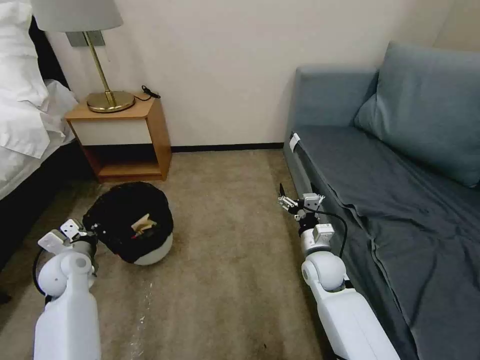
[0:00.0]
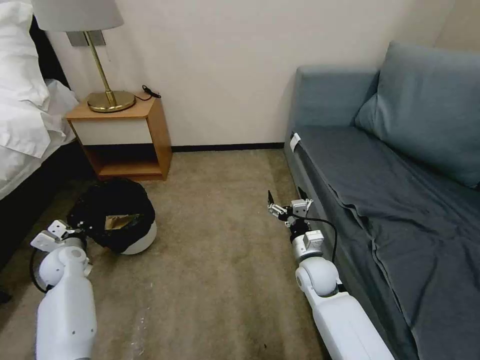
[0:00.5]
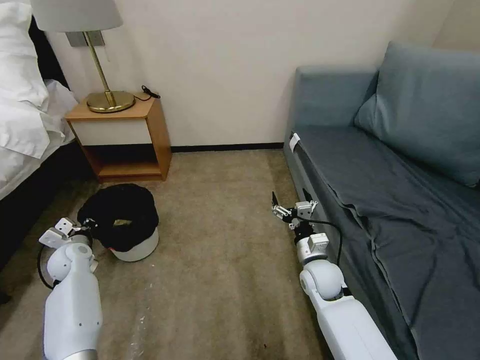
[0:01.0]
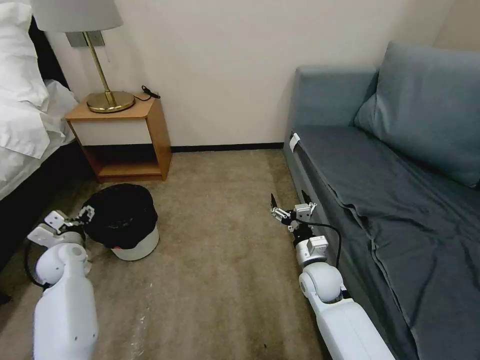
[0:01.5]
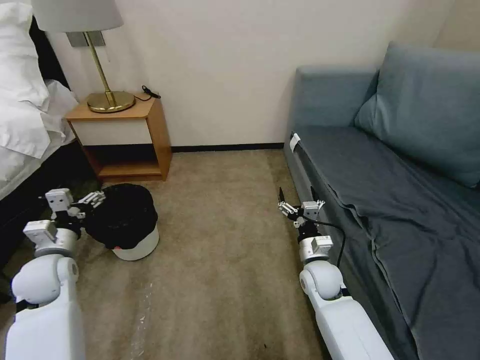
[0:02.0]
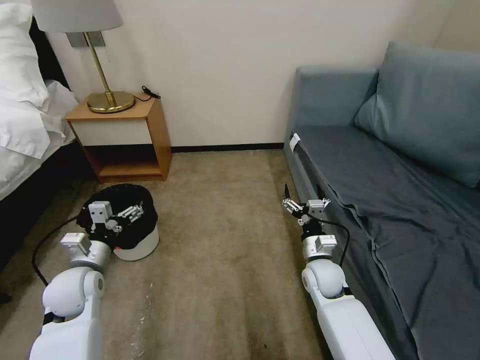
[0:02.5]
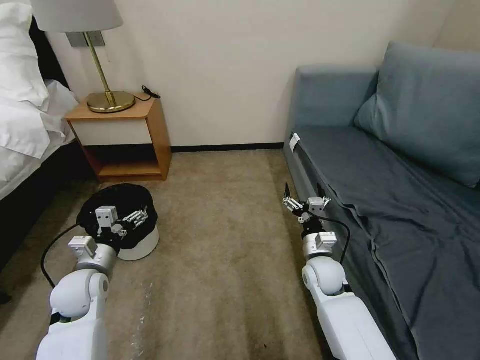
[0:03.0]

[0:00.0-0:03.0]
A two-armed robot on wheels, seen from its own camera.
Task of the whole recording: Pick up the trash bin, then pick up the garbage on the floor and place it into the trash bin.
0:00.0 to 0:01.5: The left gripper opens its fingers.
0:01.5 to 0:03.0: The left gripper goes approximately 10 cm to the right and backward.
